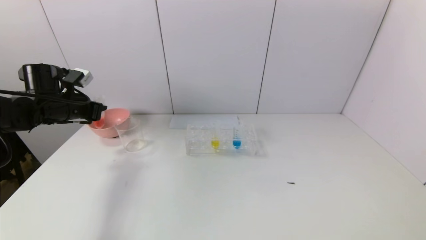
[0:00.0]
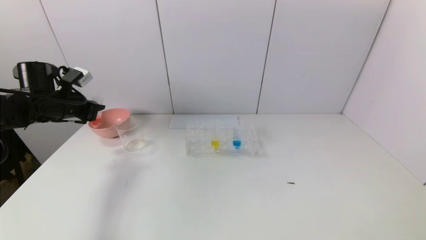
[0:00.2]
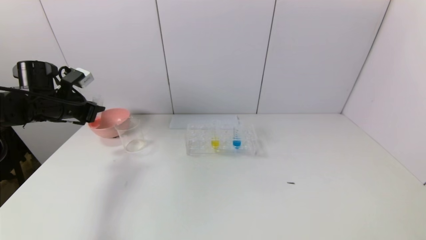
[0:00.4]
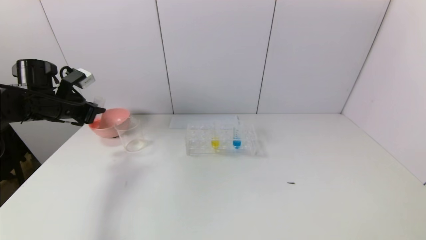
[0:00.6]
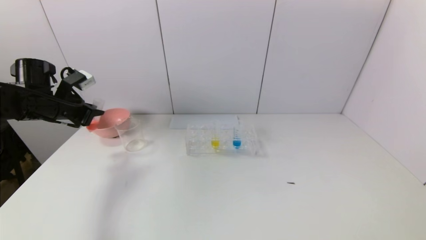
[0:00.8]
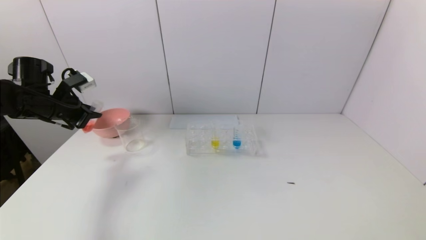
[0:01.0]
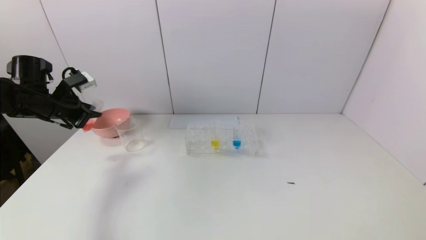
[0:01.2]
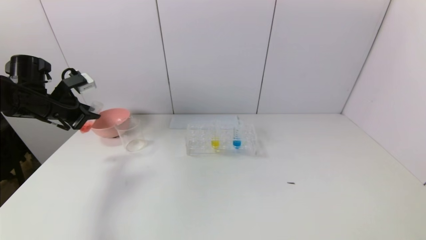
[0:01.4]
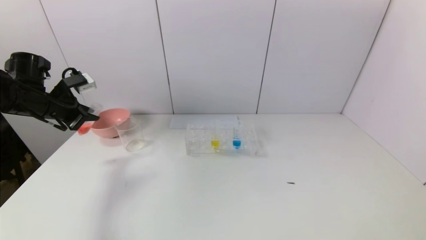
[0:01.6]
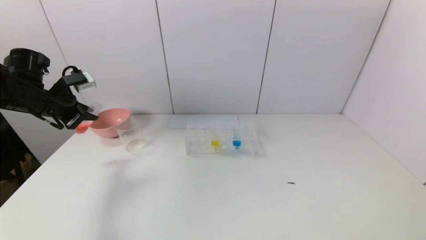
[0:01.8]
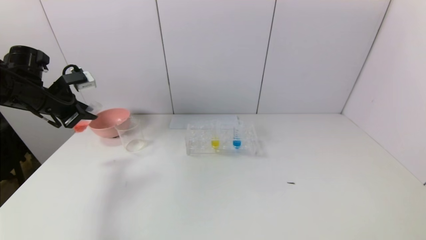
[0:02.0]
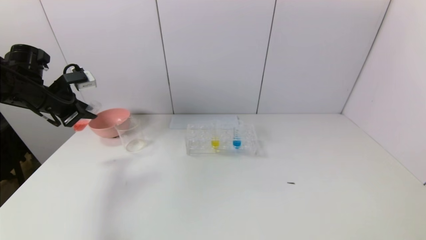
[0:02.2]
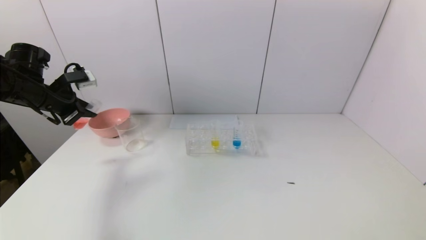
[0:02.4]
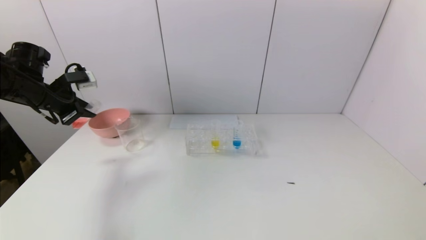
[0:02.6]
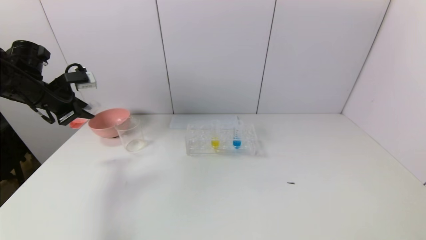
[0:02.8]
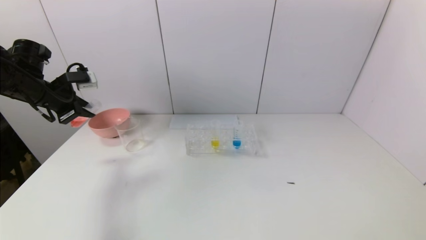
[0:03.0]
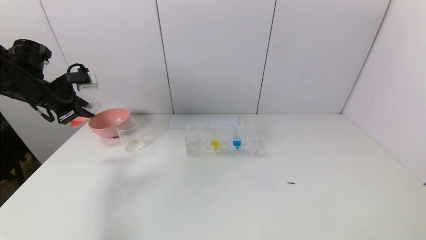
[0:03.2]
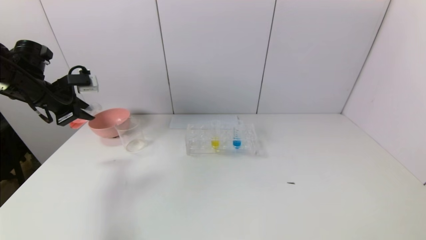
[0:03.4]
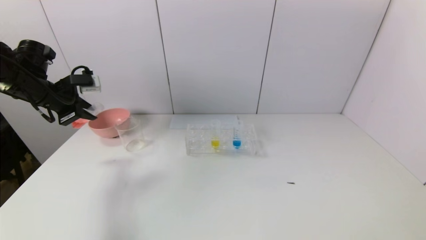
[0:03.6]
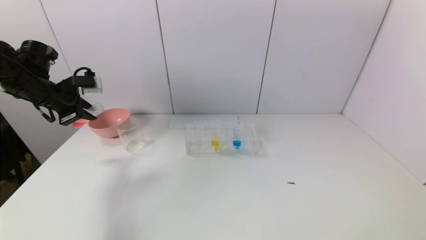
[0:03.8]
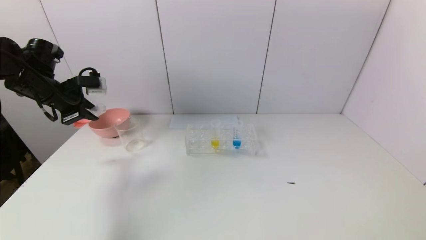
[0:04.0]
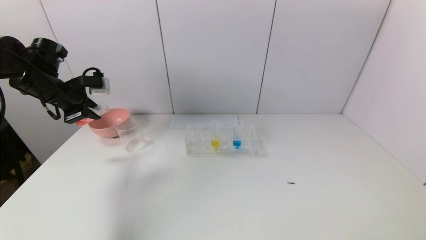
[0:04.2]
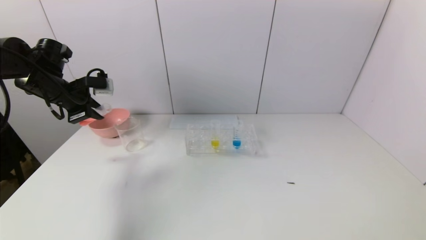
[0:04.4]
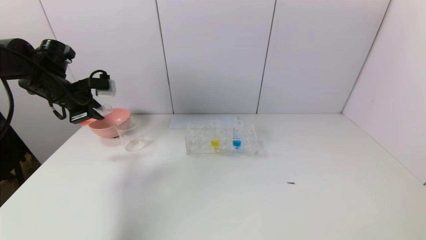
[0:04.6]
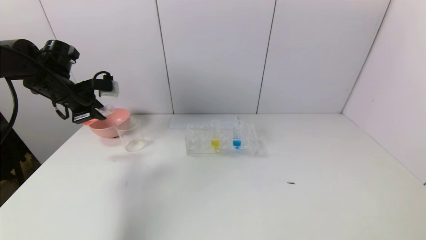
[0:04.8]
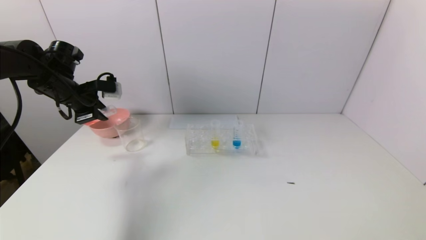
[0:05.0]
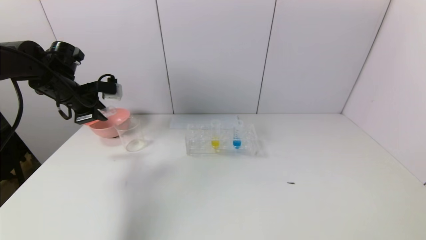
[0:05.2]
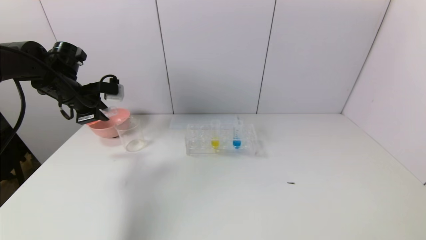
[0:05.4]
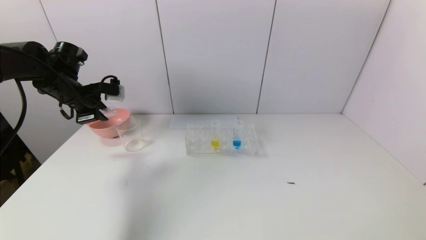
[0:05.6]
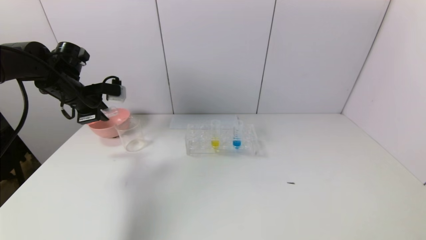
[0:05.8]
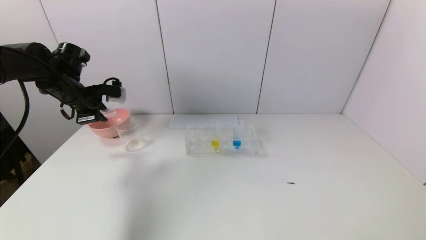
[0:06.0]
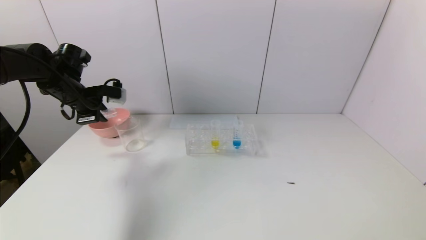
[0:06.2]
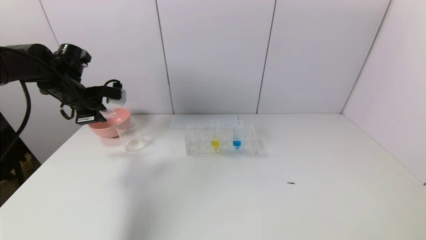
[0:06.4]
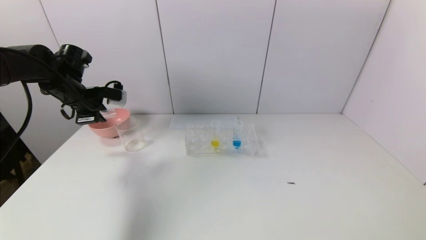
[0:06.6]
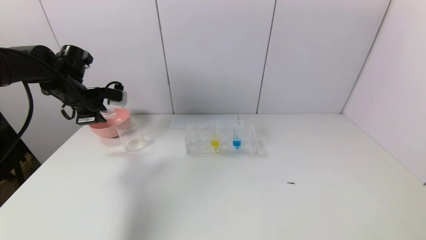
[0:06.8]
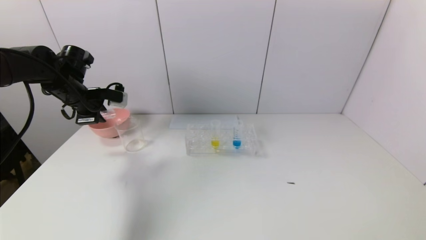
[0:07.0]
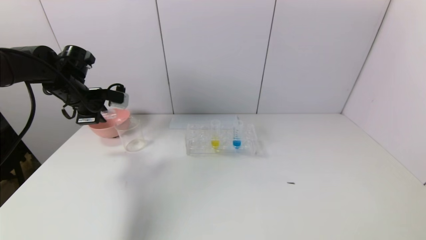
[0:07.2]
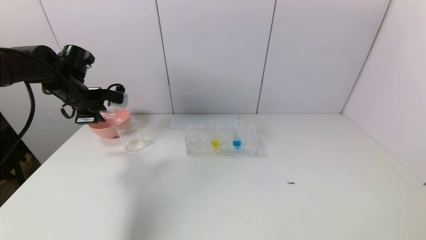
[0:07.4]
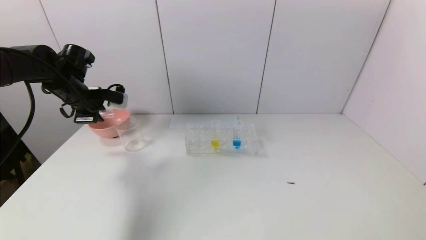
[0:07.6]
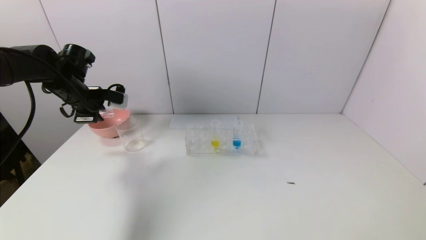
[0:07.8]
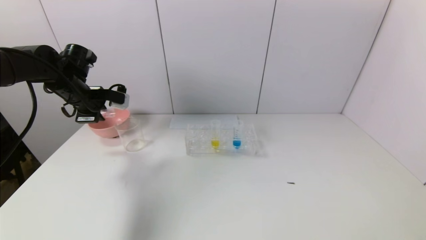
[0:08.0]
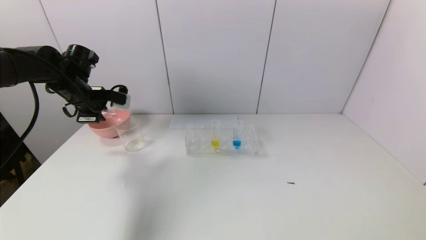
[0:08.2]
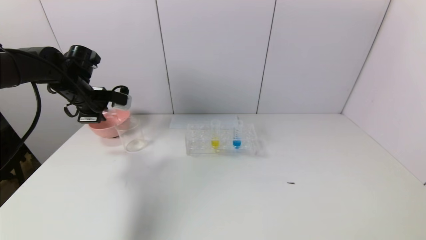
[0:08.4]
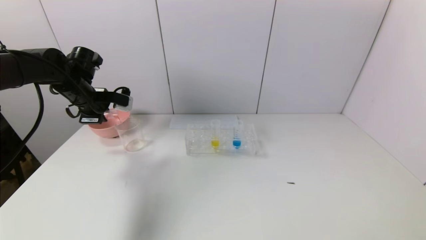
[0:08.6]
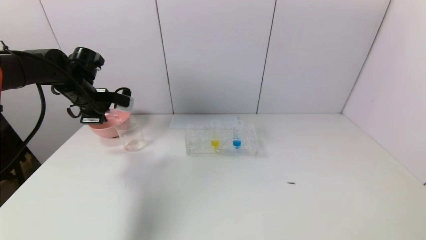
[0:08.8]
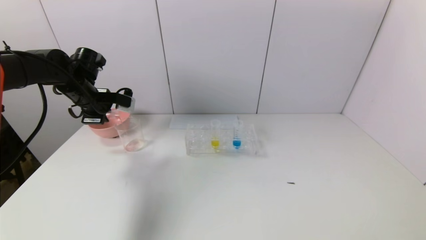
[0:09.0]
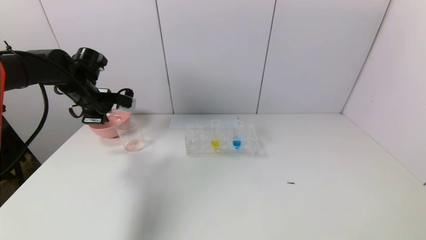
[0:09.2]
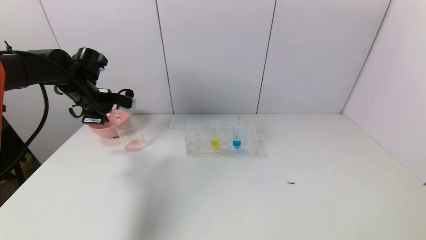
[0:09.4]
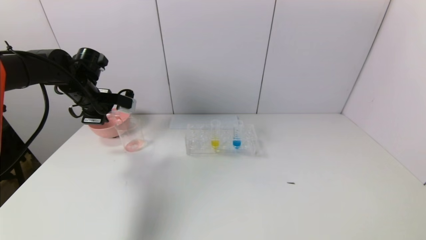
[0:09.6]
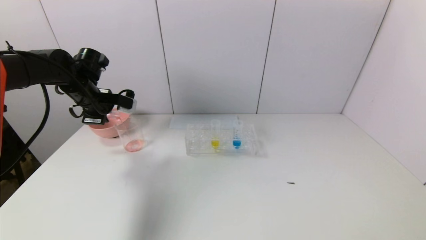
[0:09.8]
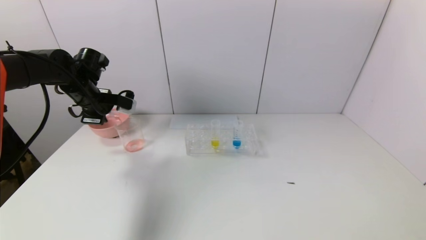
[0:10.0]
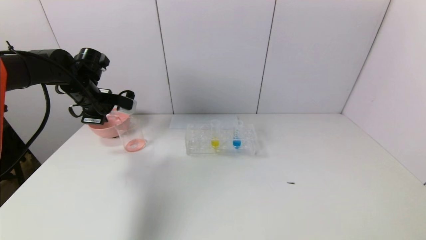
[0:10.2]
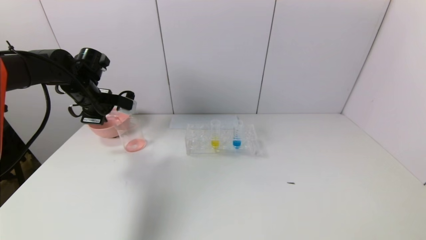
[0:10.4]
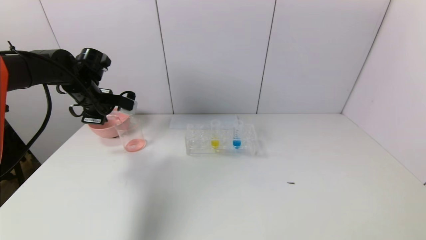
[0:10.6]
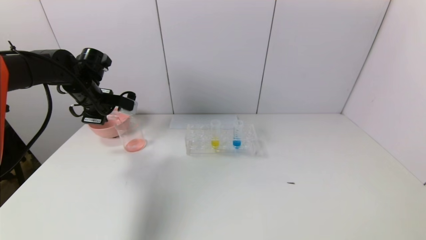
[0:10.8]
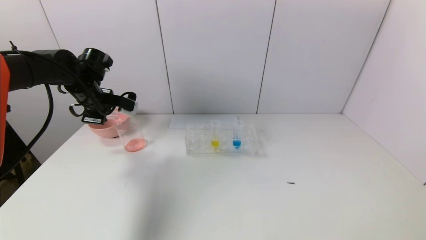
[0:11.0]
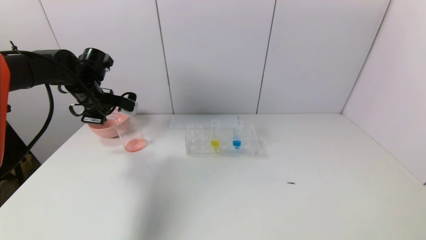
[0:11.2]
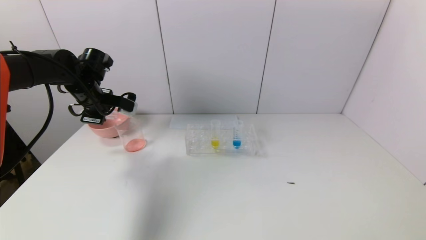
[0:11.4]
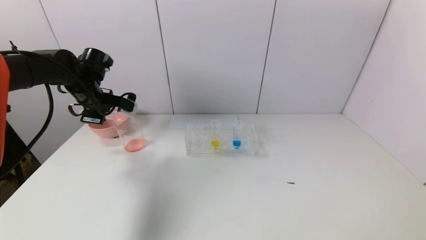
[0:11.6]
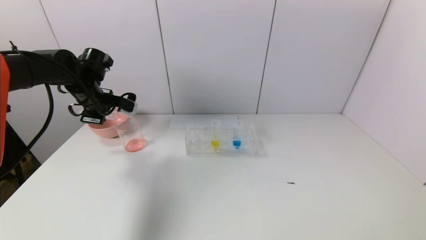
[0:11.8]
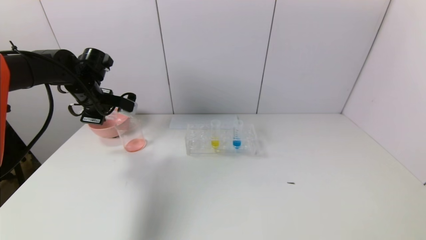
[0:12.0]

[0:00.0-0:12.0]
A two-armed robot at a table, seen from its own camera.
Task of the whole recording: pick up the test tube with yellow pigment and the test tube with red pigment by grippers and pour them into the beaker.
Step, 0:00.0 to 0:11.8: Pour the red reagent into the graduated cylinder with the left gripper.
0:01.6 to 0:03.0: The grippers make only small movements.
0:03.0 to 0:04.4: The grippers stay close to where they were, moving slightly.
0:04.4 to 0:06.0: The grippers move only a little.
0:06.0 to 0:10.4: The grippers make only small movements.
0:10.4 to 0:12.0: Both grippers stay about where they are.

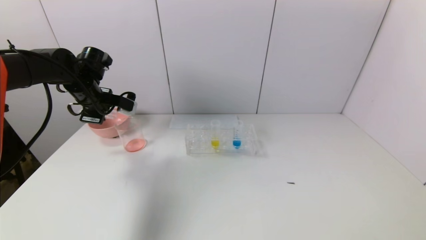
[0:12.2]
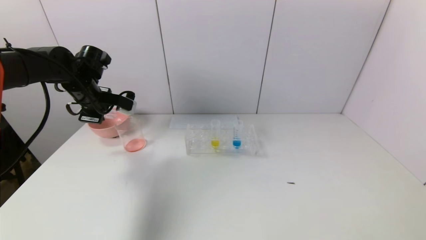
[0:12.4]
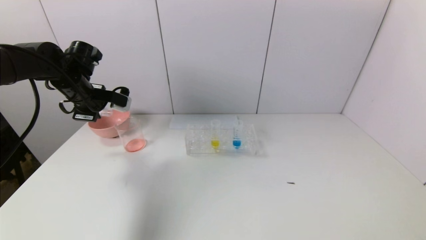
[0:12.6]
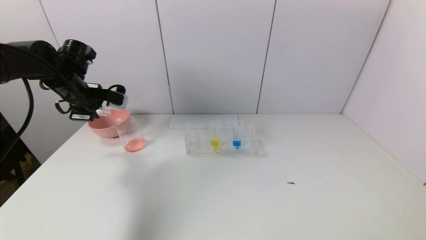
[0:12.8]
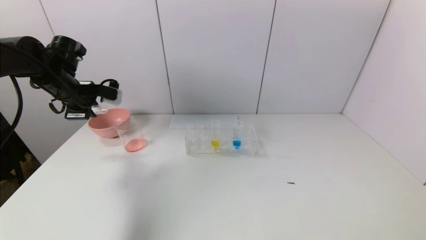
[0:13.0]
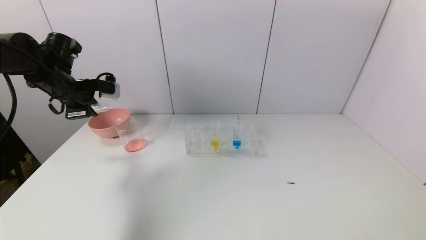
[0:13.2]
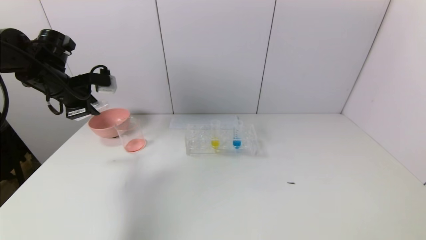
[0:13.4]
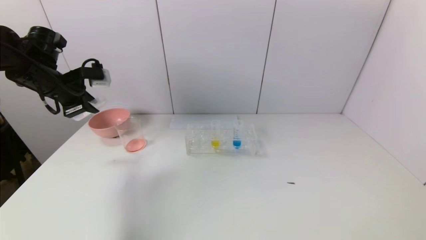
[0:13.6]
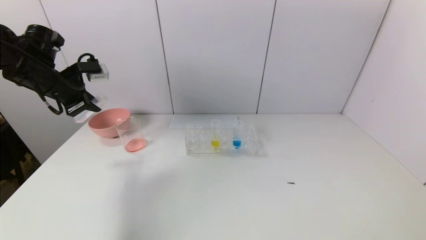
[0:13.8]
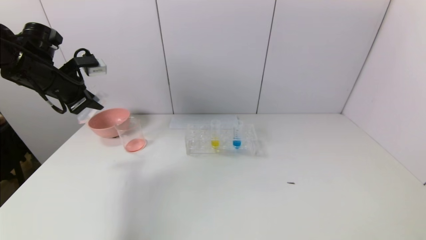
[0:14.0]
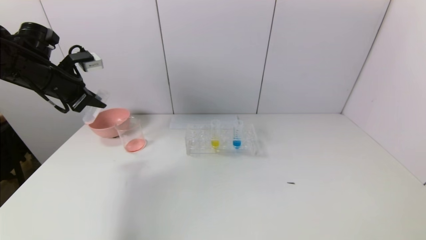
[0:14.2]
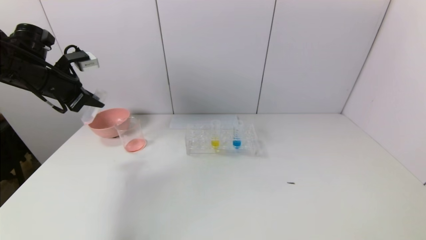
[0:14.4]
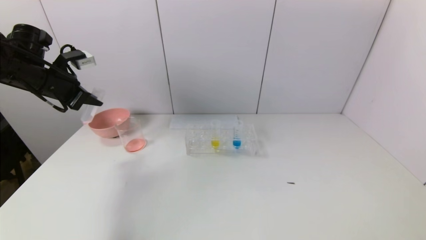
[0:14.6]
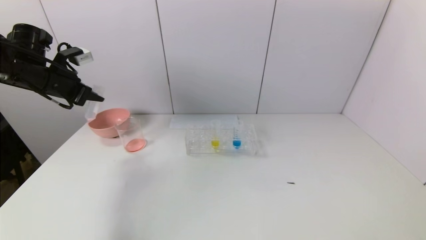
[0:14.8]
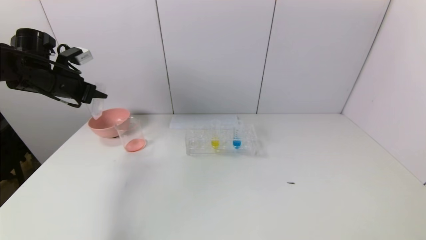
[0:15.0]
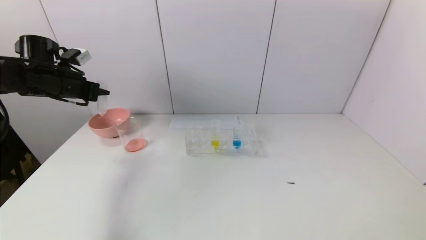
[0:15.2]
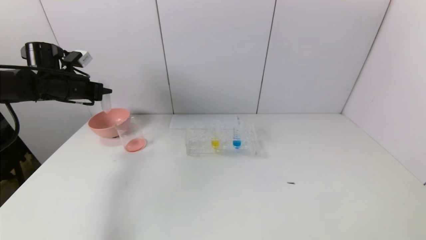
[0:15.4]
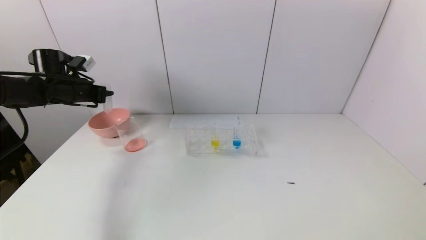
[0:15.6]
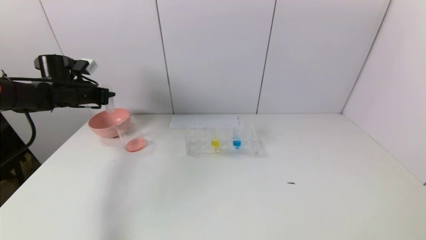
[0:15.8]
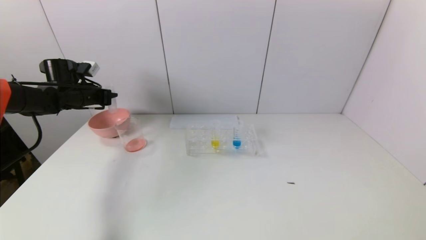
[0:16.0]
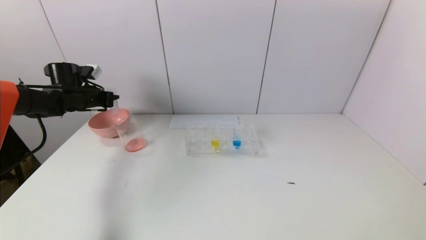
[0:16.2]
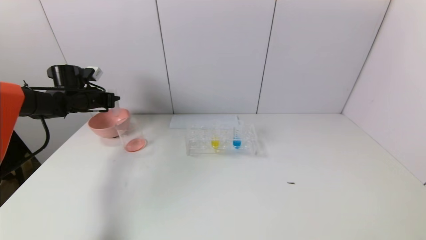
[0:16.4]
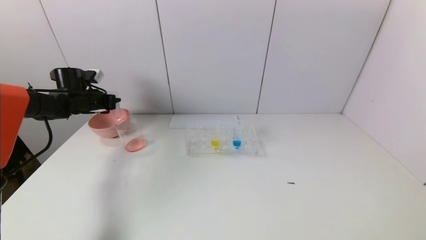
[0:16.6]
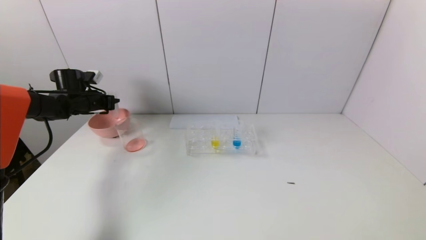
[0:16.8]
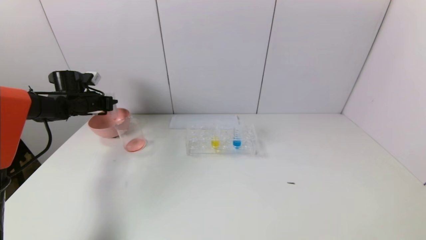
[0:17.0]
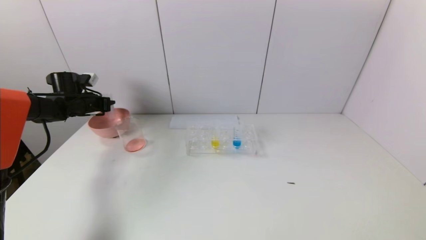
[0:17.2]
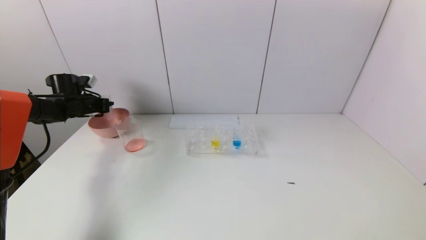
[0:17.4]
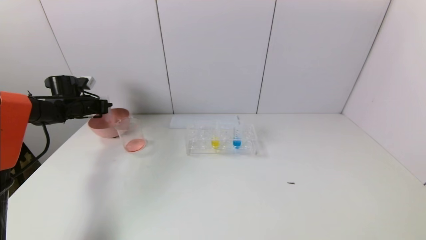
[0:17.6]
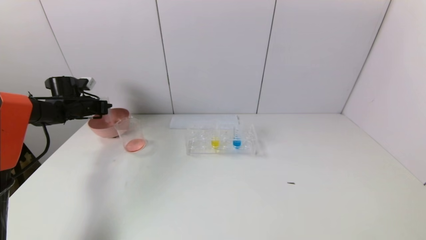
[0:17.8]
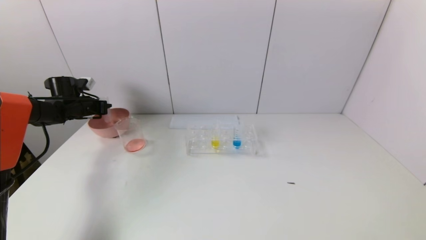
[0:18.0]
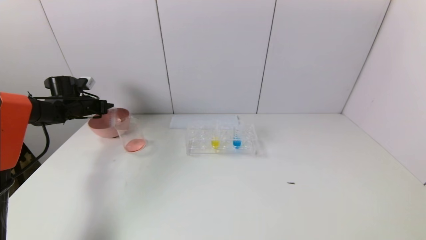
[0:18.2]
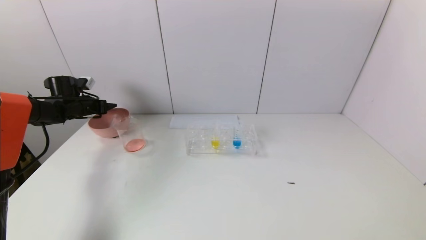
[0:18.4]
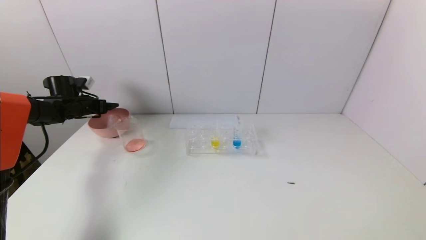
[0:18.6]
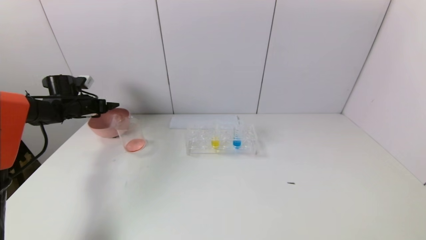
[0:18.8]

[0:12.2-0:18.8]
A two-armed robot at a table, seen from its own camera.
Task of the whole recording: pick up the test tube with yellow pigment and the test tube with red pigment by grippers and pour them into the beaker.
Step, 0:12.2 to 0:18.4: Place the test tube into the pink bowl with the left gripper.
0:12.2 to 0:13.8: The left gripper shifts by roughly 10 cm.
0:13.8 to 0:15.4: The left gripper goes some 5 cm forward.
0:15.4 to 0:17.2: The left gripper travels downward and forward by approximately 10 cm.
0:17.2 to 0:18.8: The left gripper opens.
